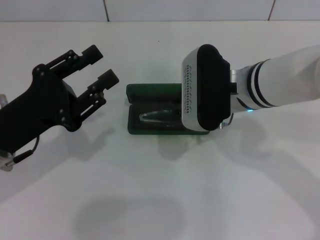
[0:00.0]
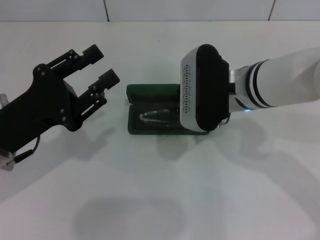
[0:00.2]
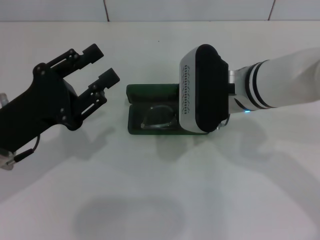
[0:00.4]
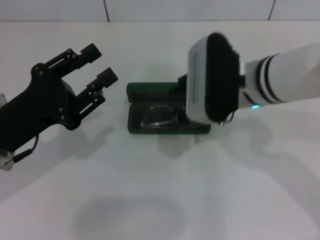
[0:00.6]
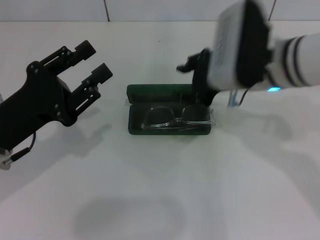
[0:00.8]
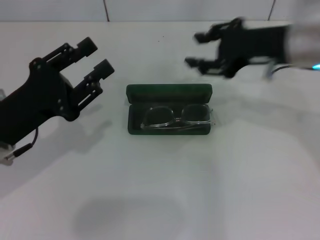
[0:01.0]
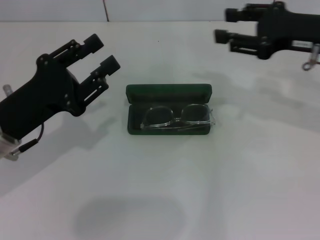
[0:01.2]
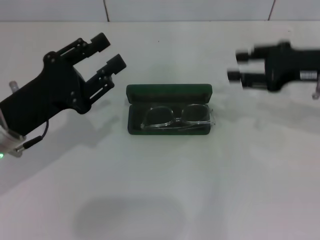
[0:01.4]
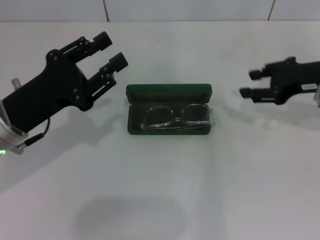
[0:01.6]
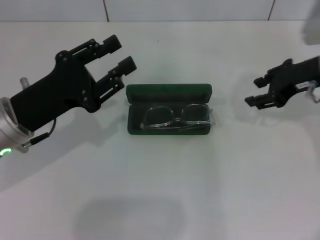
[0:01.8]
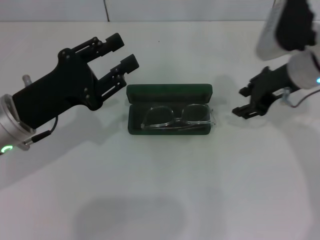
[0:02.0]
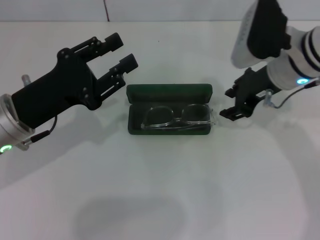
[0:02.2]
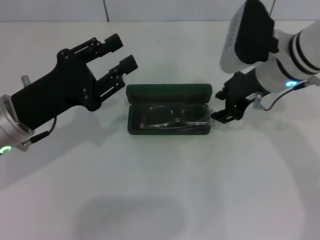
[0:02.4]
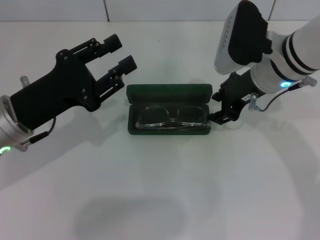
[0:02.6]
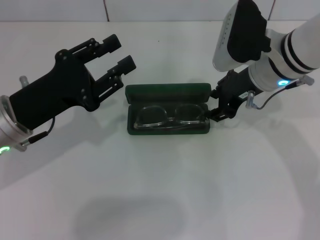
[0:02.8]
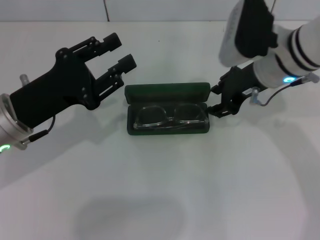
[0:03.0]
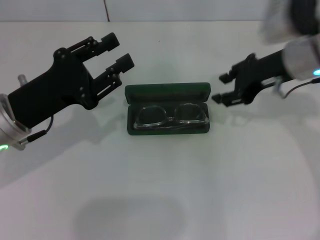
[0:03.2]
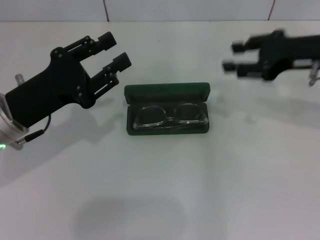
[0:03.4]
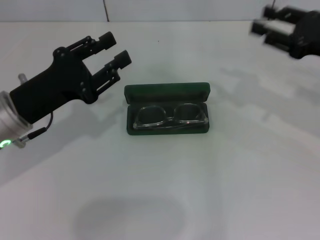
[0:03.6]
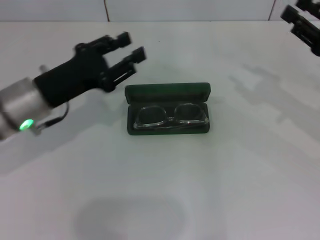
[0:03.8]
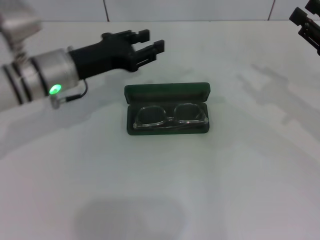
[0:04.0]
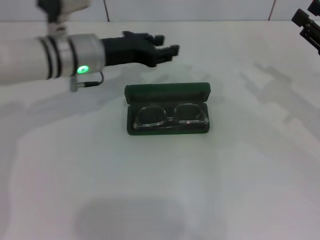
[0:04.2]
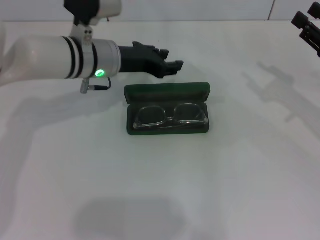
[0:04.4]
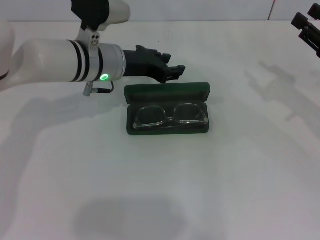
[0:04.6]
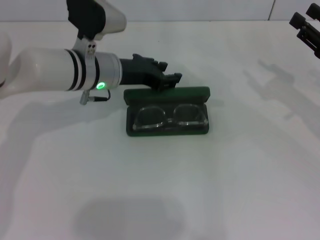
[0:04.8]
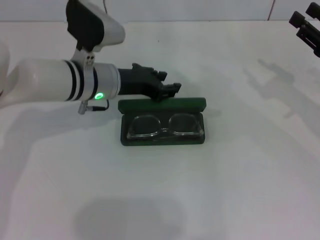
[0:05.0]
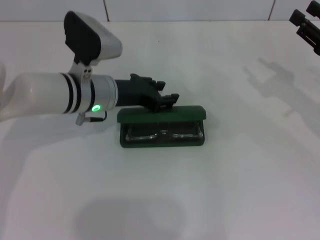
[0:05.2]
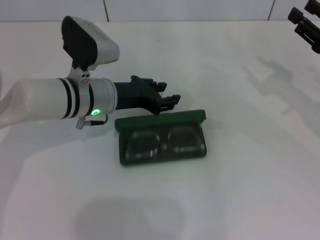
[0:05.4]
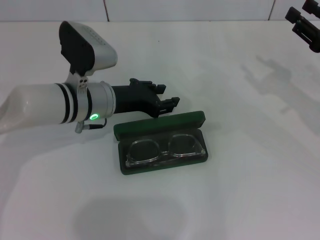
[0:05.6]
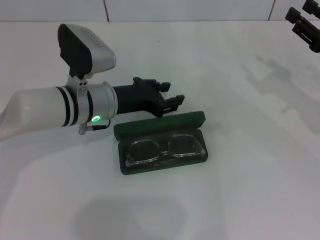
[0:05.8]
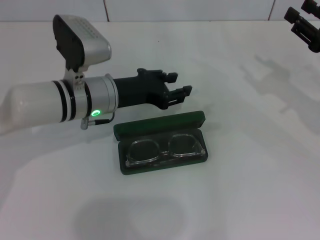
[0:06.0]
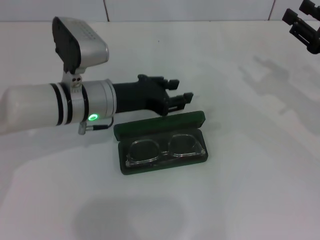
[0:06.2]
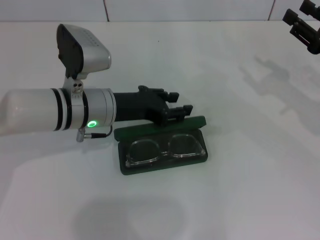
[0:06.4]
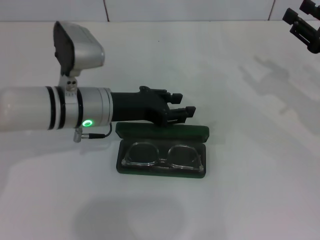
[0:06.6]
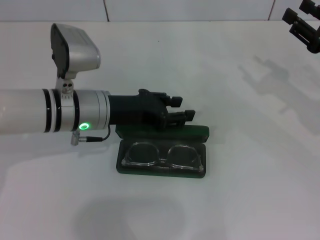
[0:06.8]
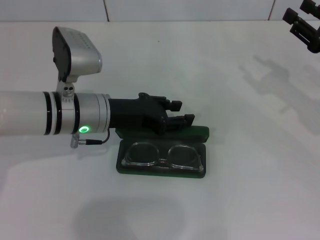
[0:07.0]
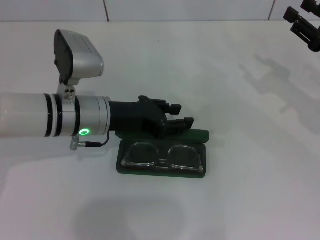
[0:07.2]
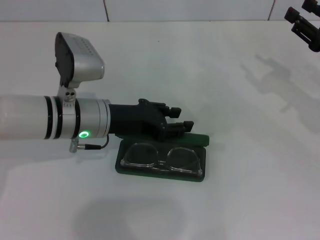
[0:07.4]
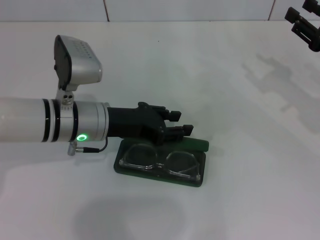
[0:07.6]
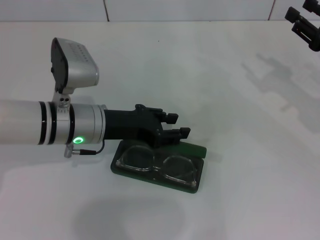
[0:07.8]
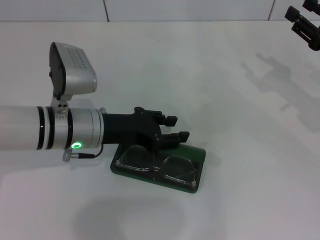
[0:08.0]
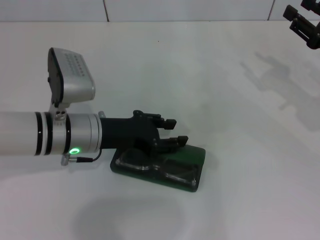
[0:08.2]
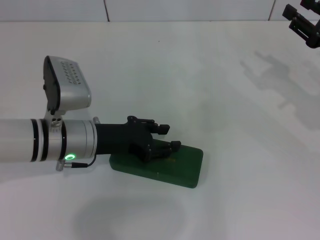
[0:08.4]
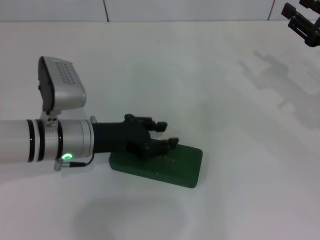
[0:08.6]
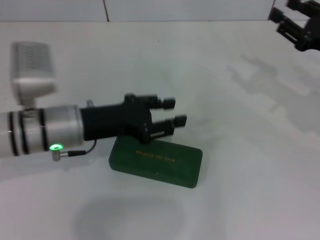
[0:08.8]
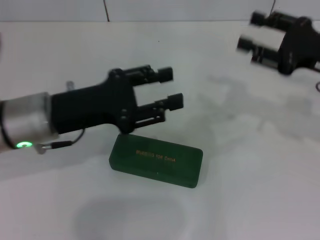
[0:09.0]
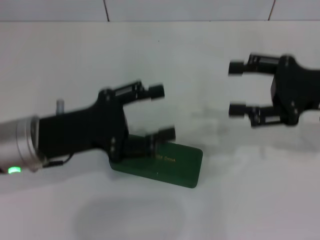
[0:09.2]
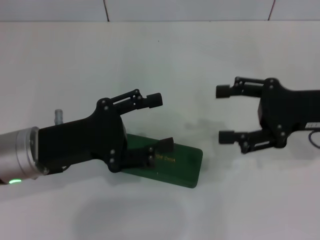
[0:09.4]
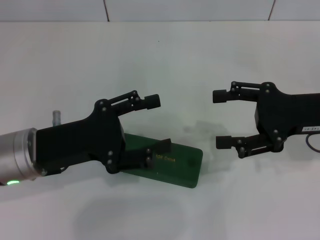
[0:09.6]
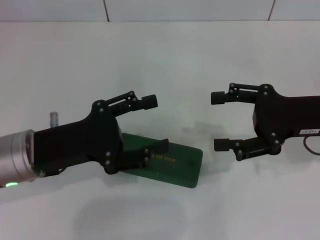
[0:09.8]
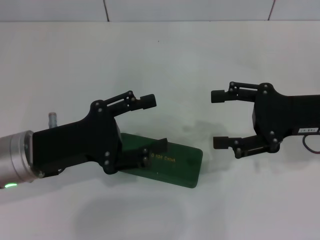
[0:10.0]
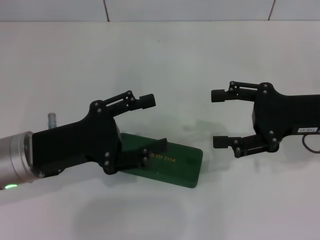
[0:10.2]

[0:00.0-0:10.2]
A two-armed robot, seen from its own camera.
Step, 0:00.0 to 0:02.8: Put the glasses into the case with your right hand.
Step, 0:03.0 to 0:08.2: Close the glasses case with your left hand.
0:00.0 to 0:01.4: The right gripper shifts approximately 15 cm to the right, and opens its fingers.
0:01.4 to 0:03.0: The right gripper is displaced to the left by roughly 10 cm.
0:03.0 to 0:04.4: The left gripper is displaced forward and to the right by approximately 15 cm; the right gripper heads to the right, covering approximately 15 cm.
0:04.4 to 0:05.8: The left gripper travels backward by some 5 cm.
0:05.8 to 0:07.2: The grippers move only a little.
0:07.2 to 0:08.8: The grippers make only small movements.
0:08.8 to 0:10.2: The right gripper goes about 5 cm to the left, and opens; the left gripper goes about 5 cm backward, and opens its fingers.

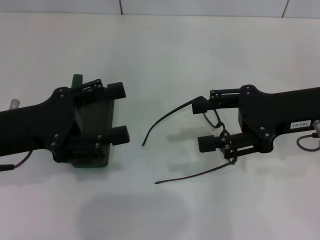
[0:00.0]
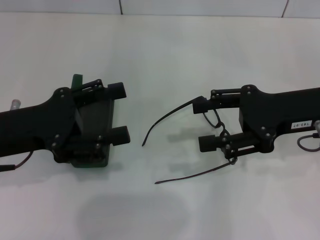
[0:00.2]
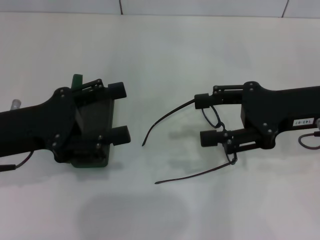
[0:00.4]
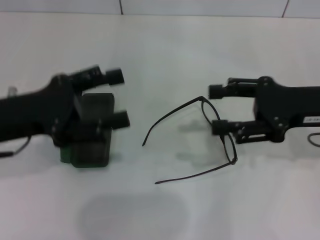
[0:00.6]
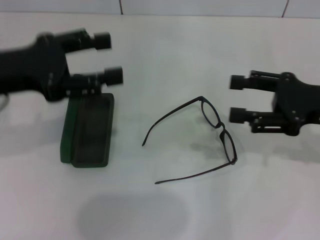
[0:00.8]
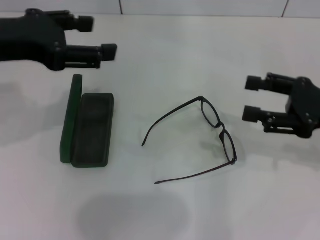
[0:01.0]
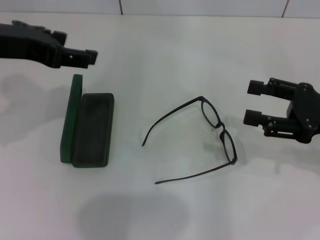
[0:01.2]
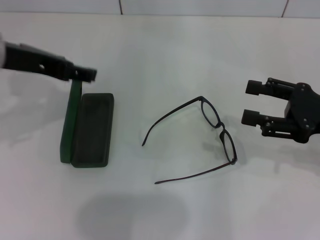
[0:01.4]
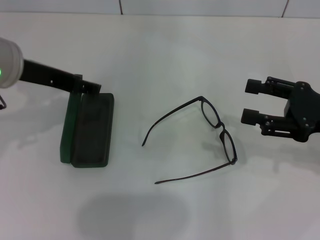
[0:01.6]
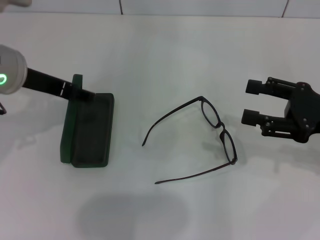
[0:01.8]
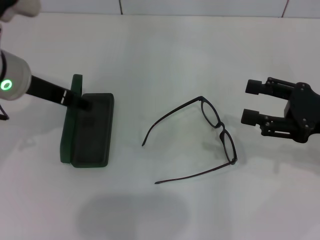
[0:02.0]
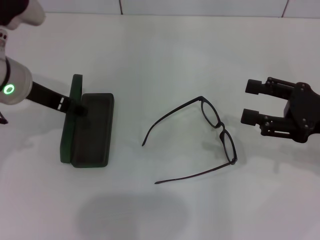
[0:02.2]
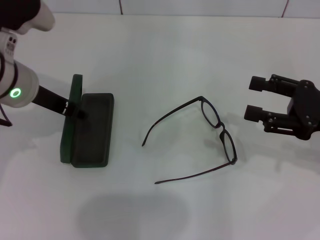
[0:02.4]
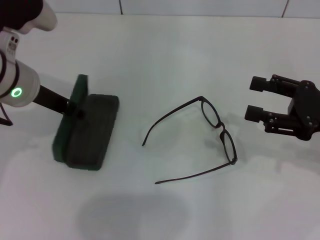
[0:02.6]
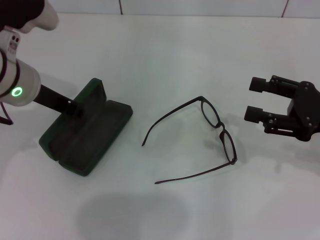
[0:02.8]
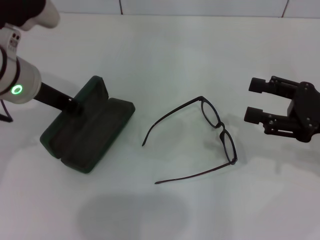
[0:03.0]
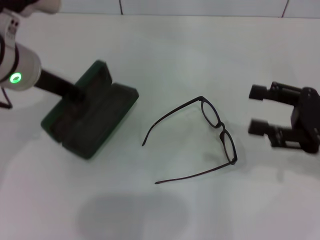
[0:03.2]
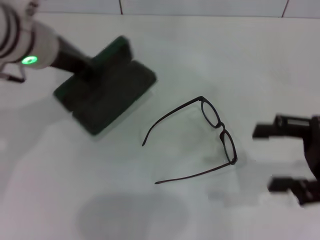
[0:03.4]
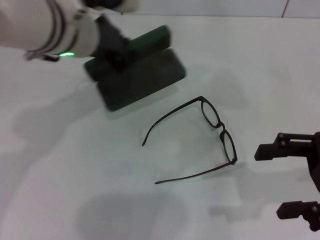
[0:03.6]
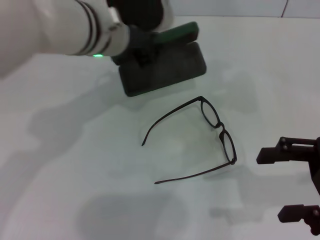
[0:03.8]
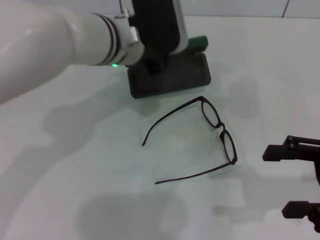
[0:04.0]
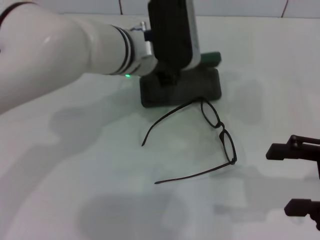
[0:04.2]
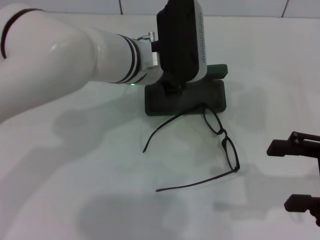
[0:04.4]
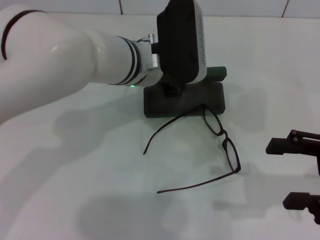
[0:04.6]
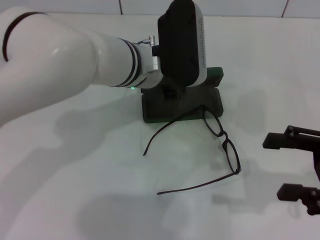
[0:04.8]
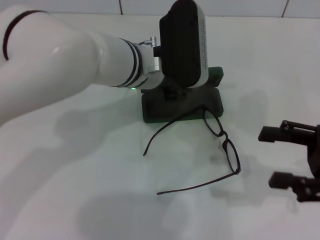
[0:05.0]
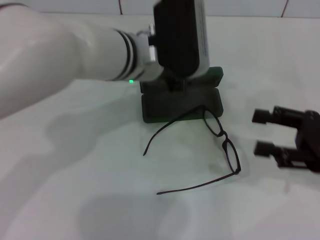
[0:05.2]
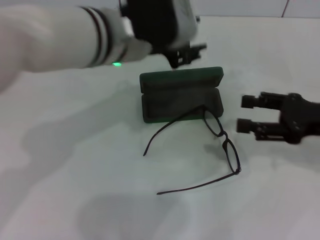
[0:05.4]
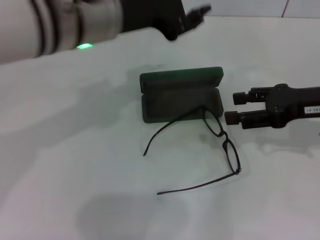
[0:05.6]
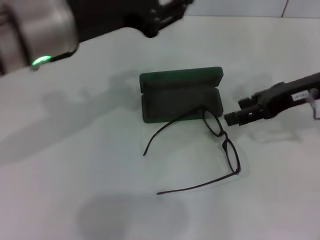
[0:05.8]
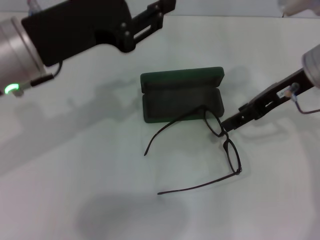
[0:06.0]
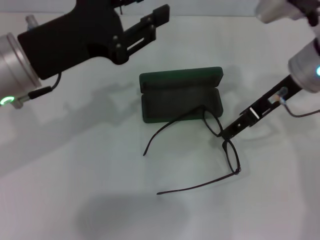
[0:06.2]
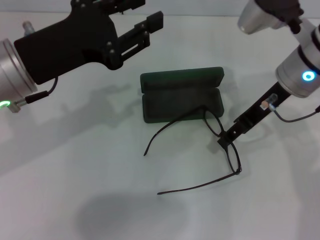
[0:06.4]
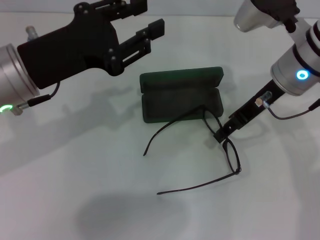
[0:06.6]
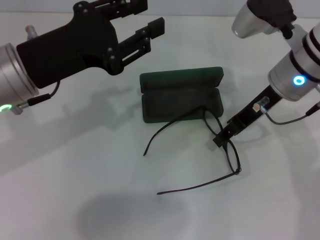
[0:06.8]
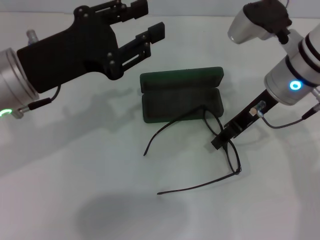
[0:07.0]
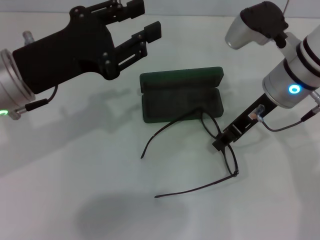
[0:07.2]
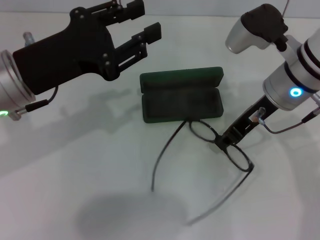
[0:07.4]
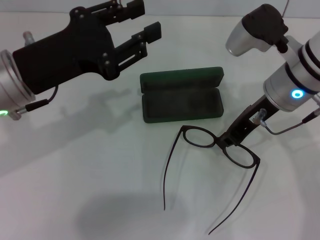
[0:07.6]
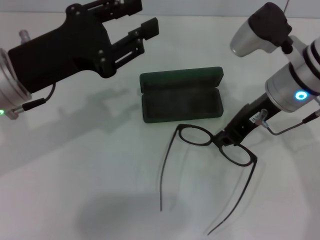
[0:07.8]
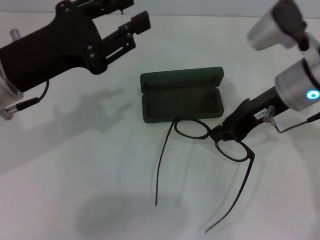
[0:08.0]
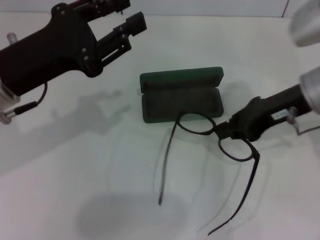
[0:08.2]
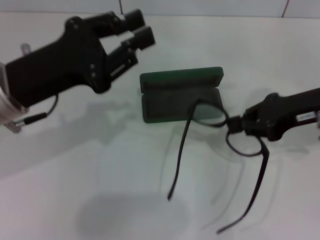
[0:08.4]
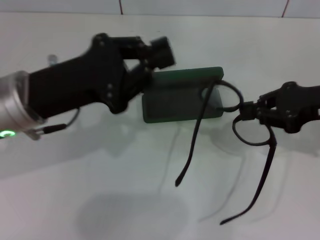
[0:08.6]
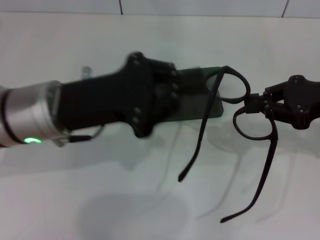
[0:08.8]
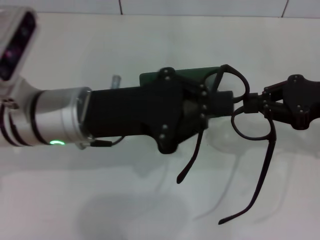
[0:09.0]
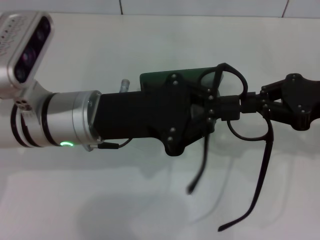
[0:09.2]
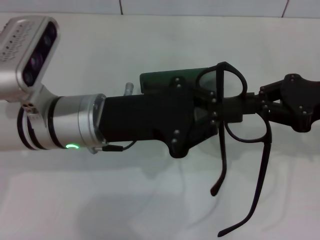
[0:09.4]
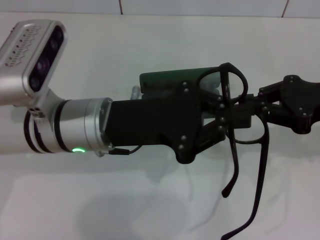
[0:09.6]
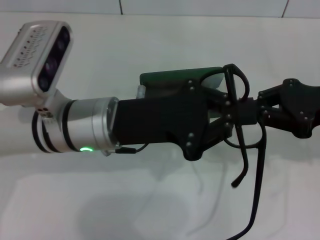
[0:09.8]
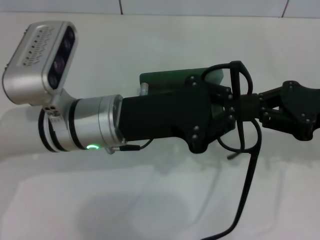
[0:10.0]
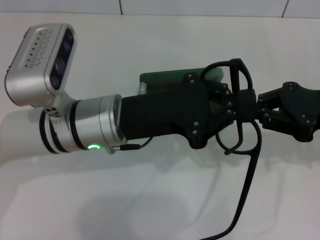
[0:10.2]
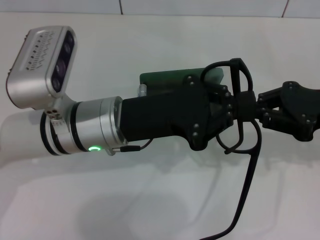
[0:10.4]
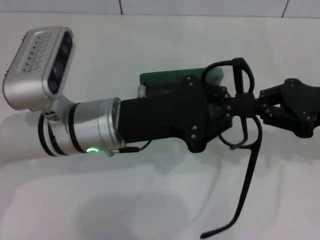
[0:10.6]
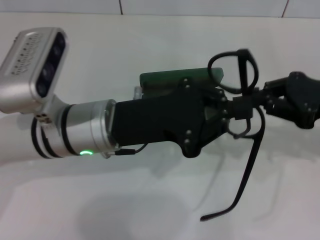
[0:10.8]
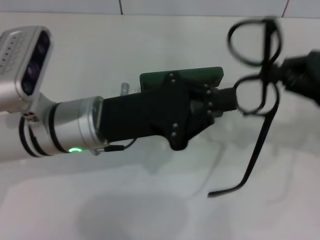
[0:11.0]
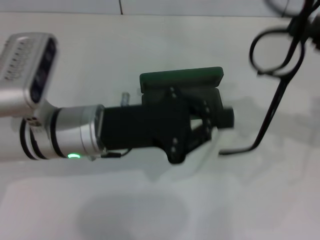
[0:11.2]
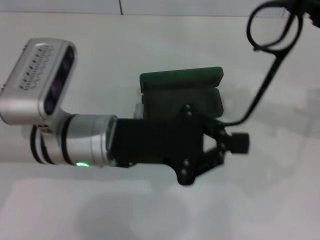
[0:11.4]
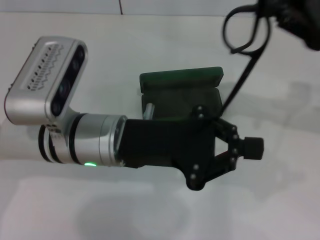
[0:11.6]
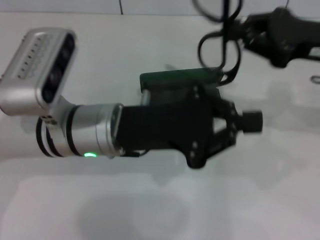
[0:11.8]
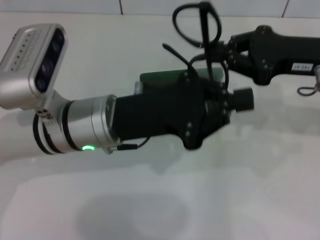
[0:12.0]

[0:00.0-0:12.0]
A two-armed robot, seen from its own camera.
Step, 0:00.0 to 0:02.8: Grab the glasses case with your left hand.
Step, 0:03.0 to 0:04.6: Place the glasses case in the center of the table with your left hand.
Step, 0:04.8 to 0:07.4: Grab the eyeglass frame with your right hand.
0:00.0 to 0:01.6: The left gripper is displaced upward and forward by roughly 10 cm. Meanwhile the right gripper moves to the right, some 5 cm.
0:01.6 to 0:03.0: The left gripper closes its fingers.
0:03.0 to 0:04.4: The right gripper shifts approximately 5 cm backward. Meanwhile the left gripper moves to the right, about 15 cm.
0:04.4 to 0:06.0: The right gripper goes approximately 20 cm forward, to the left and upward. Meanwhile the left gripper heads to the left, backward and upward, covering some 15 cm.
0:06.0 to 0:07.6: The right gripper shifts by some 5 cm, and closes its fingers.
0:07.6 to 0:09.0: The left gripper goes about 5 cm to the right, and closes up, while the right gripper shifts approximately 15 cm to the right and backward.
0:10.4 to 0:12.0: The right gripper ends up some 5 cm from where it was.
